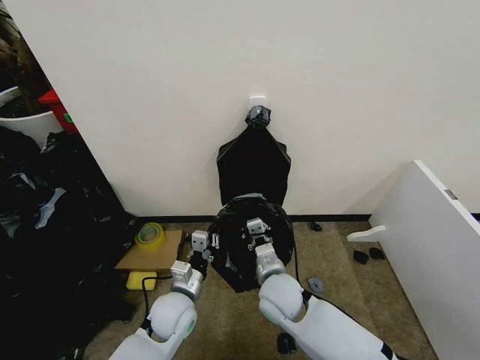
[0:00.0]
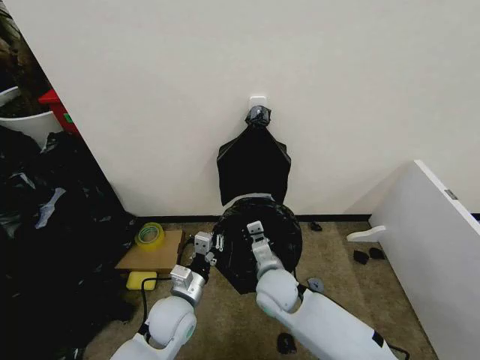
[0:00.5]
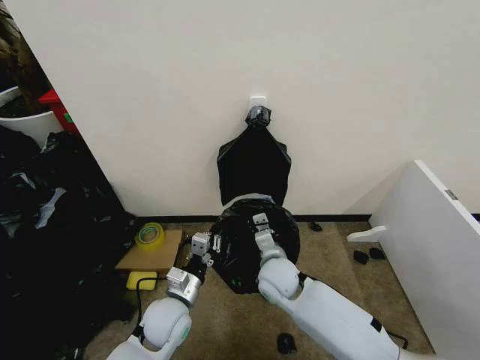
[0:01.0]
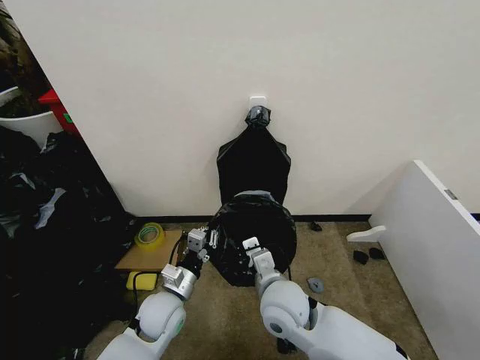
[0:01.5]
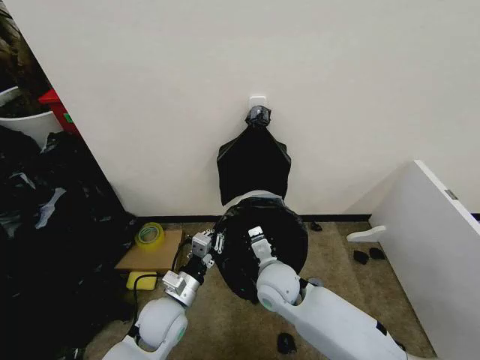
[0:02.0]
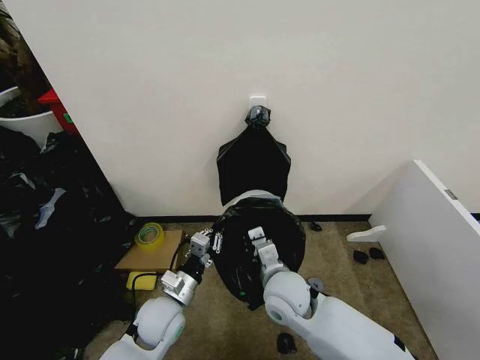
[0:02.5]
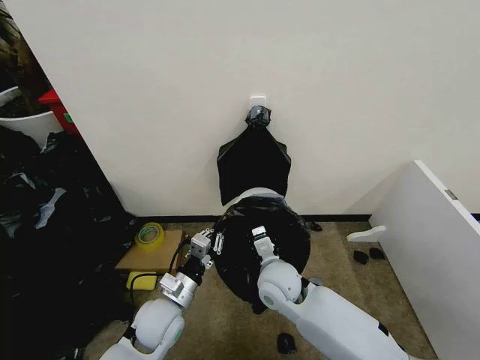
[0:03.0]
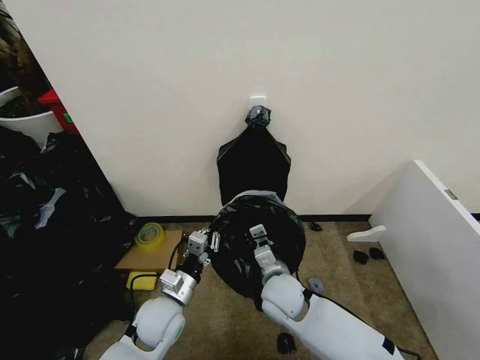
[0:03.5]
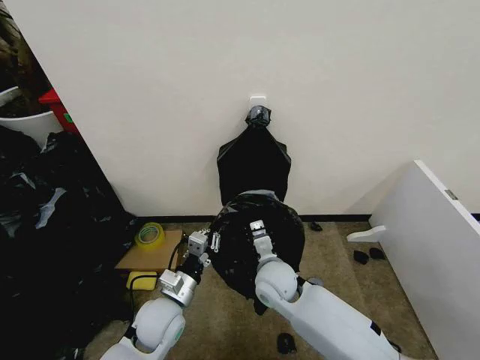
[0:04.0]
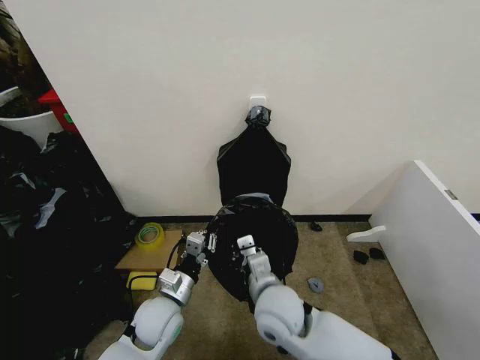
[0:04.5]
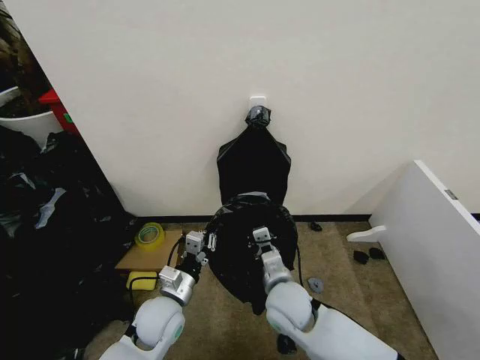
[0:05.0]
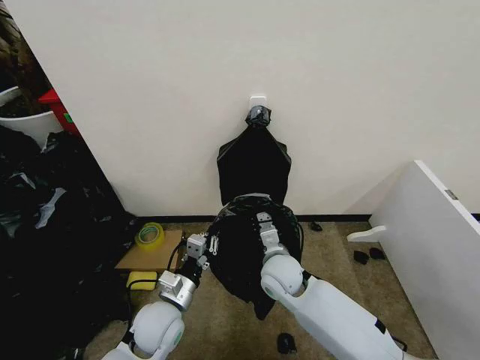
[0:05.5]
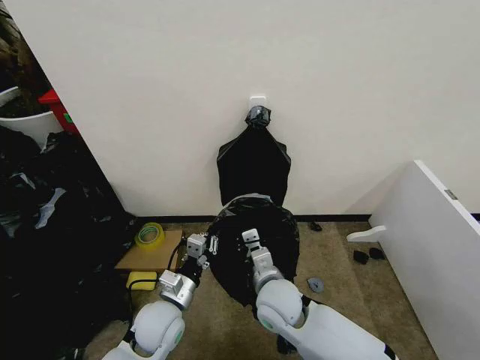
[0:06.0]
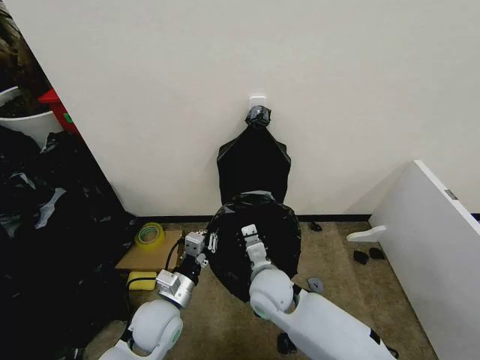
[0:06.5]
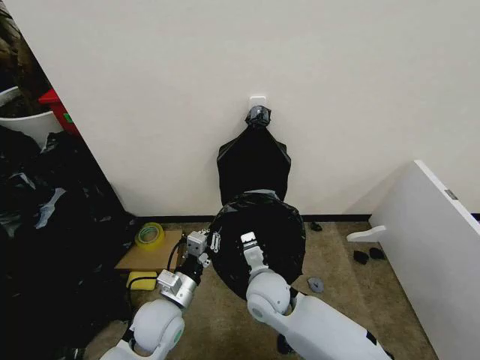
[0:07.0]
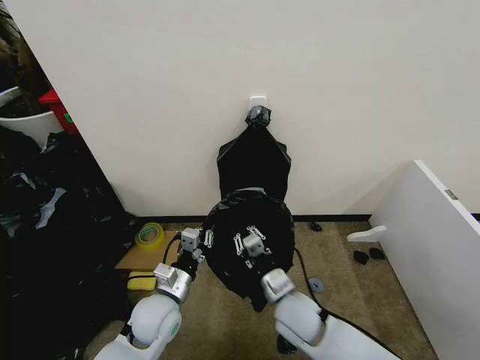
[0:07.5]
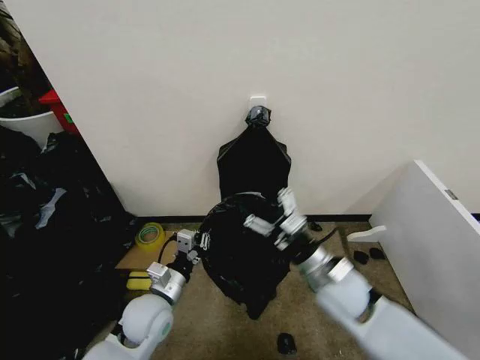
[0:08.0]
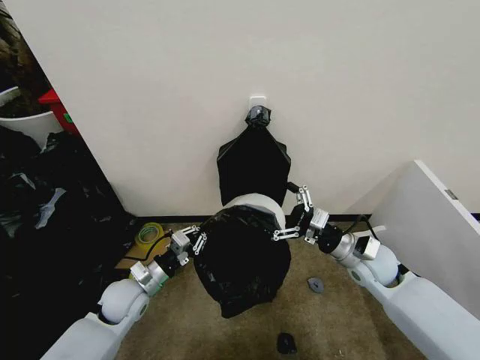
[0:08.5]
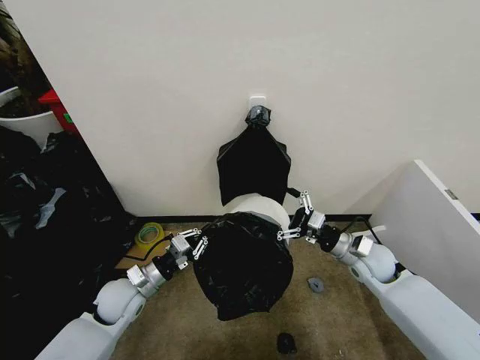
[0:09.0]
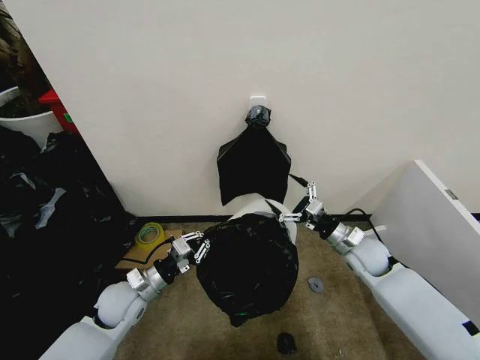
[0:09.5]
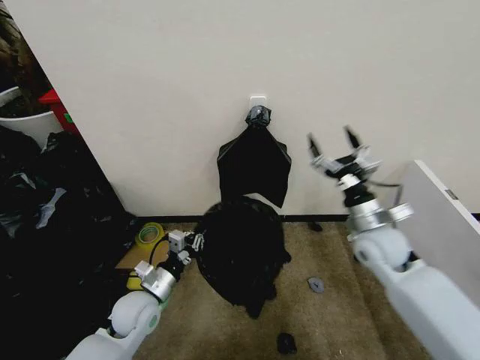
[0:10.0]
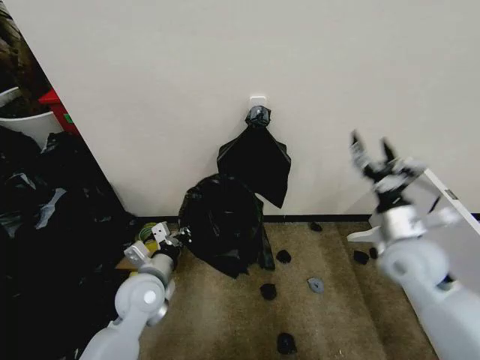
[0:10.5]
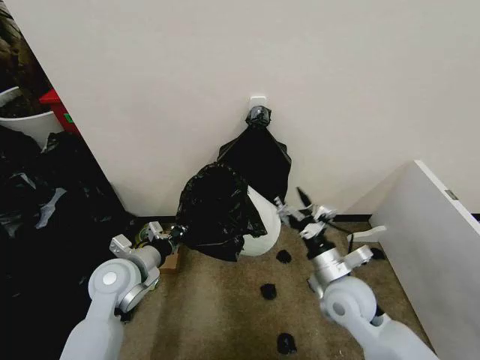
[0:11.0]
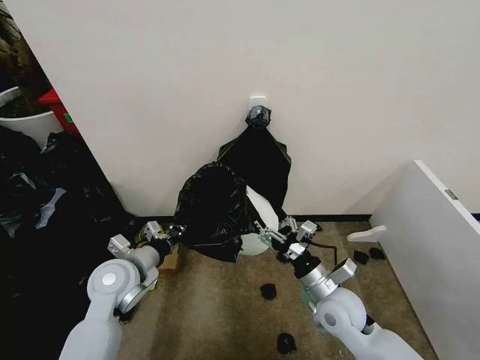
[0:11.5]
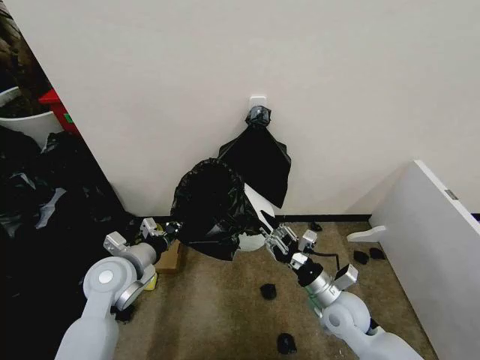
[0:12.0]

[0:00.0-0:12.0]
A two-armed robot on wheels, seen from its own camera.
Task of the whole recording: Place the garbage bag over the trash bin.
0:00.0 to 0:02.0: The right gripper swings forward and backward, roughly 10 cm each way, with 2 reversals.
0:02.0 to 0:04.0: The grippers make only small movements.
0:04.0 to 0:06.0: The right gripper goes forward and backward, about 10 cm each way, reversing 2 times.
0:06.0 to 0:08.0: The right gripper heads to the right, covering roughly 10 cm, and opens.
0:08.0 to 0:10.0: The right gripper is displaced to the right, forward and upward by roughly 20 cm.
0:10.0 to 0:12.0: The right gripper is displaced downward, backward and to the left by approximately 20 cm, and closes its fingers; the left gripper is displaced upward by approximately 10 cm.

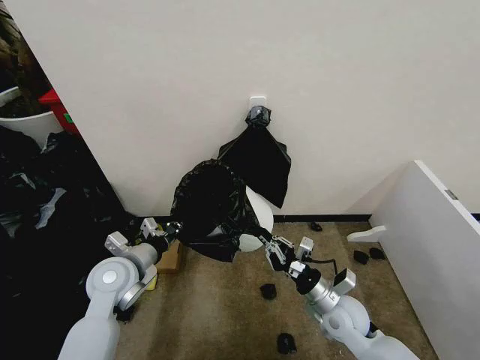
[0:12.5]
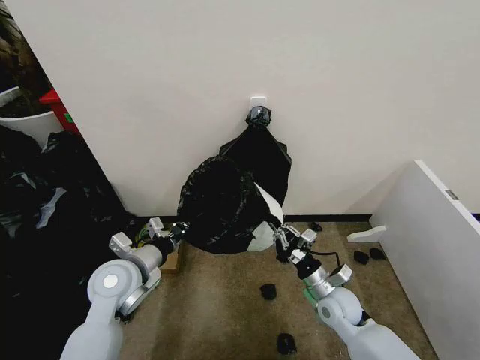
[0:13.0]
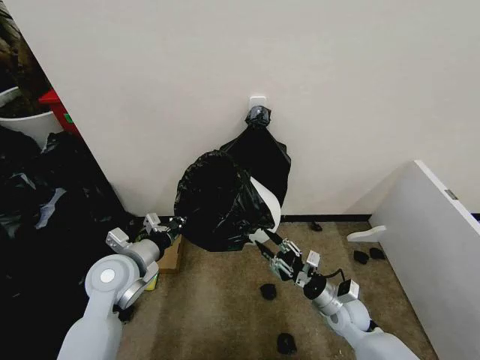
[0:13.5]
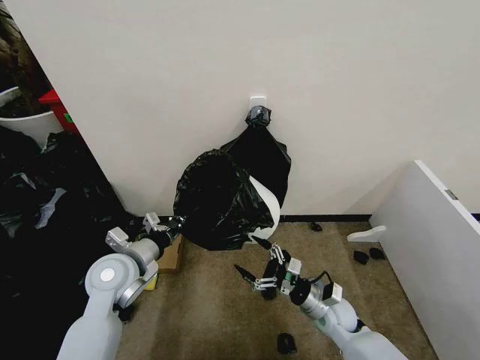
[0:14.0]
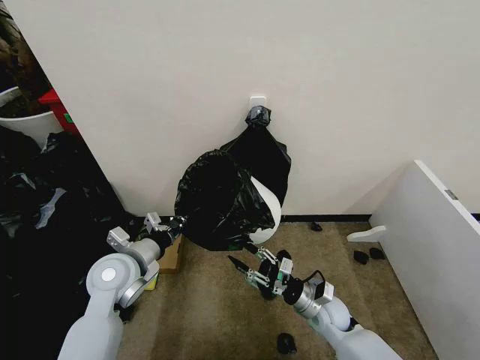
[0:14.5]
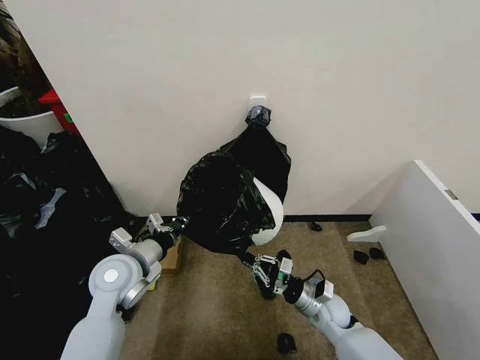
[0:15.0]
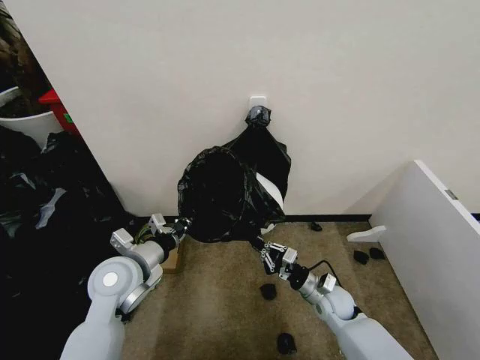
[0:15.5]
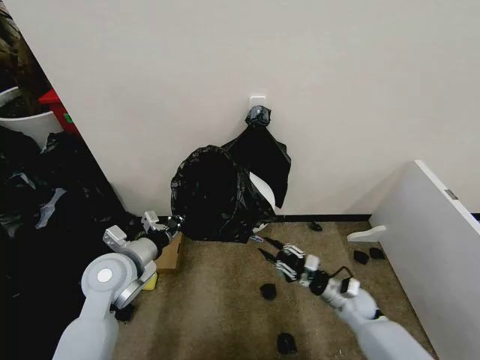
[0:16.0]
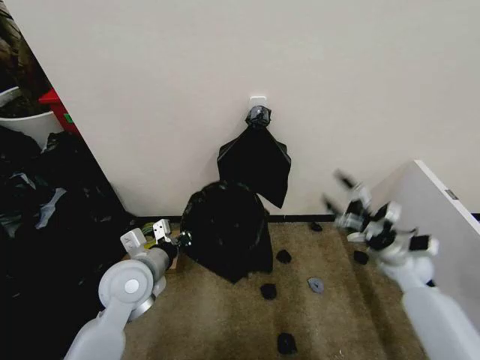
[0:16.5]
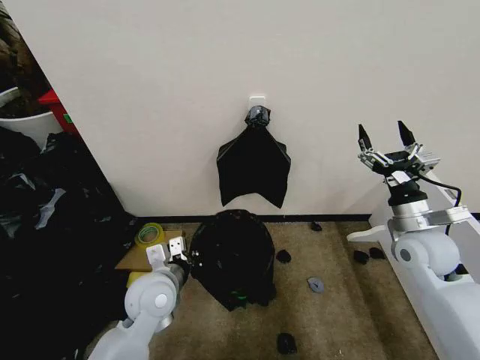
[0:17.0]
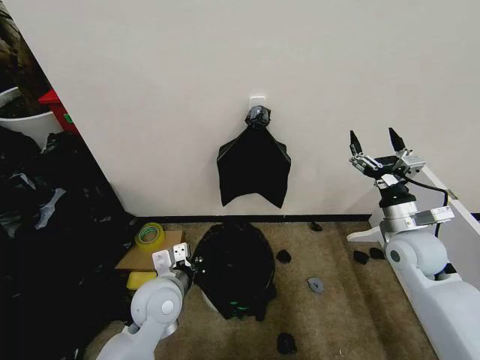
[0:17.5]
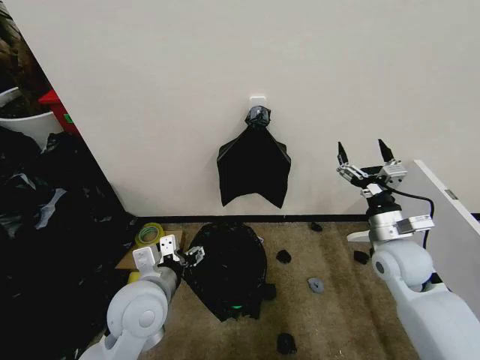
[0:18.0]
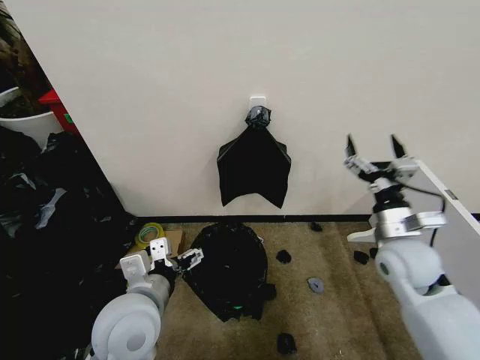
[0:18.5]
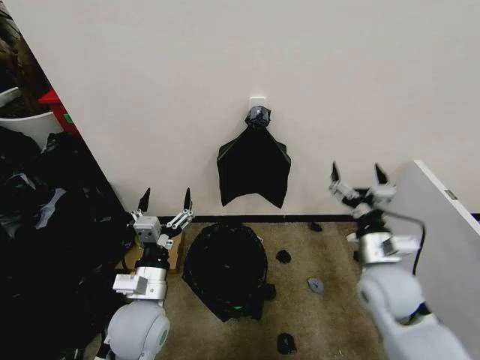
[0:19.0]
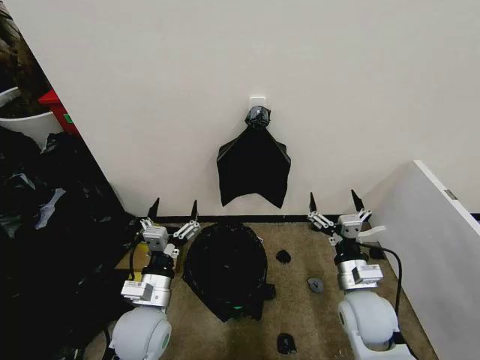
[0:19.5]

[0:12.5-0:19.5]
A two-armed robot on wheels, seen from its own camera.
Task of the whole recording: Place the garbage bag over the trash bin.
0:12.5 to 0:14.5: The right gripper shifts some 5 cm downward, and opens its fingers.
0:14.5 to 0:16.0: The right gripper heads to the right, covering some 10 cm.
0:16.0 to 0:17.5: The left gripper is displaced to the right by about 10 cm. The right gripper heads upward, covering approximately 25 cm, and opens up.
0:17.5 to 0:19.5: The right gripper is displaced to the left, backward and downward by some 15 cm, while the left gripper moves approximately 10 cm upward and comes back, and opens its fingers.
